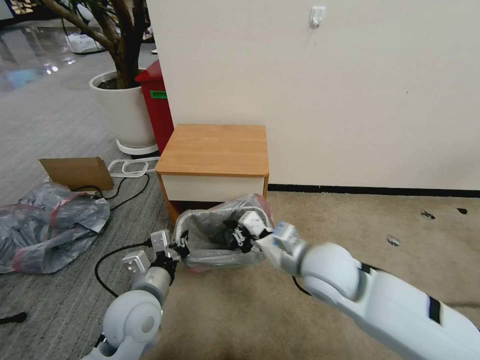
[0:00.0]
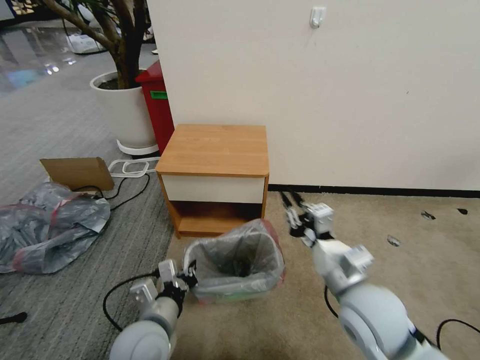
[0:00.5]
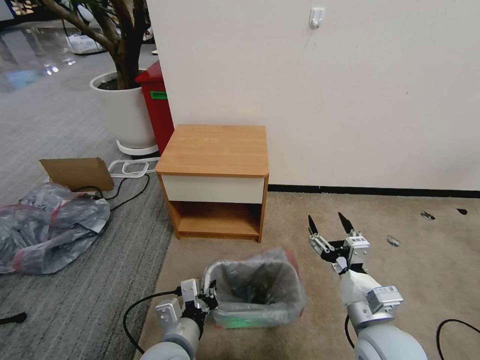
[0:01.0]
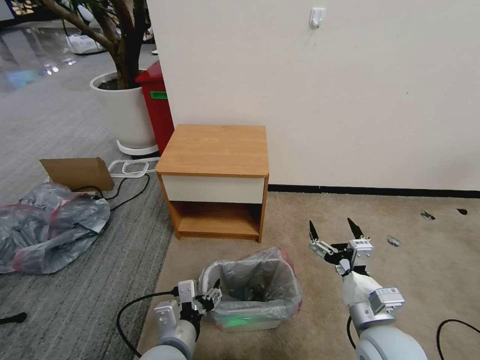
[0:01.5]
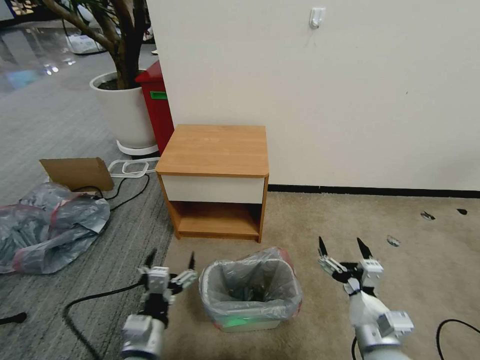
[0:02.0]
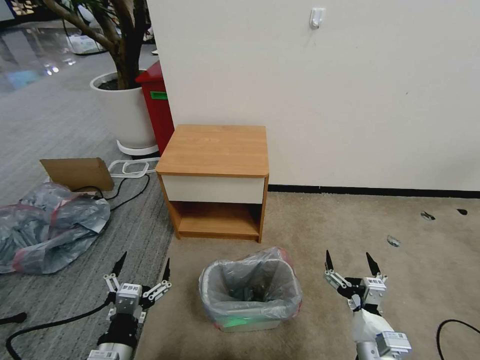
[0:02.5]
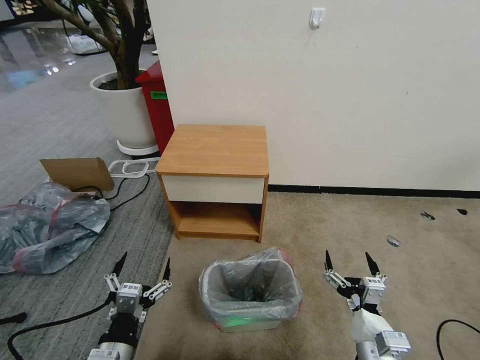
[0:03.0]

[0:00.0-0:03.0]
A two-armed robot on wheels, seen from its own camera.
Task of the whole recording: Pick up the garbage bag from the table and place it over the trash can.
0:00.0 to 0:01.5: The right gripper moves backward, to the right and downward, about 15 cm, and opens, while the left gripper is displaced backward and to the right by roughly 10 cm, and opens.
0:01.5 to 0:03.0: The left gripper is displaced to the left and backward by roughly 10 cm, and opens. Meanwhile the right gripper goes approximately 10 cm downward and backward.

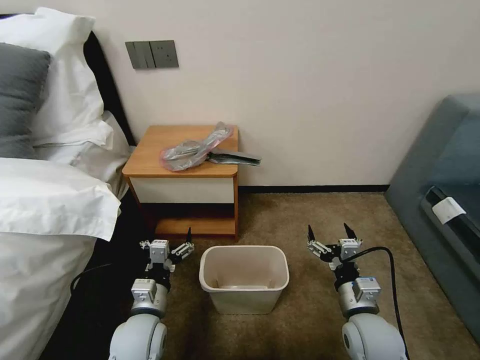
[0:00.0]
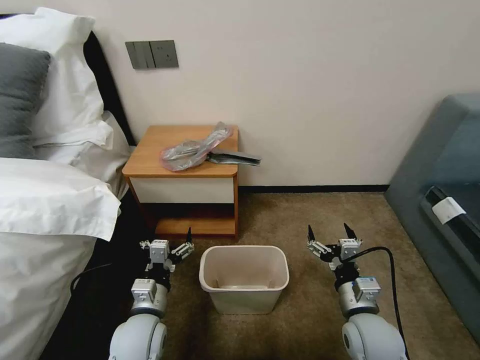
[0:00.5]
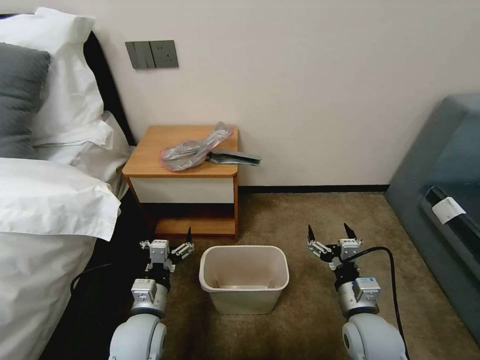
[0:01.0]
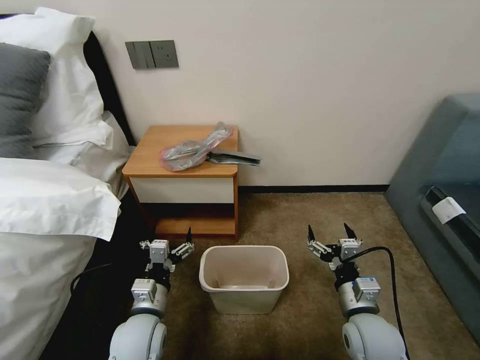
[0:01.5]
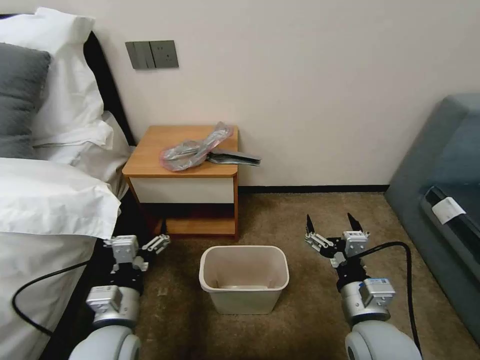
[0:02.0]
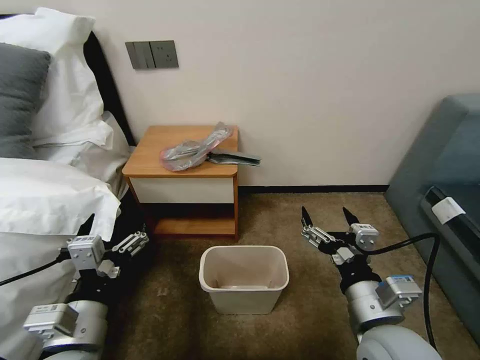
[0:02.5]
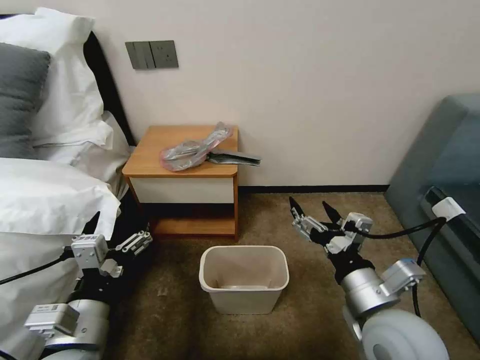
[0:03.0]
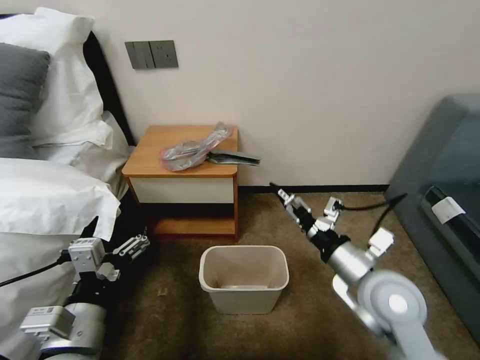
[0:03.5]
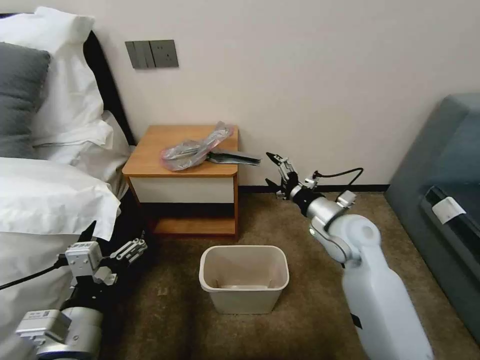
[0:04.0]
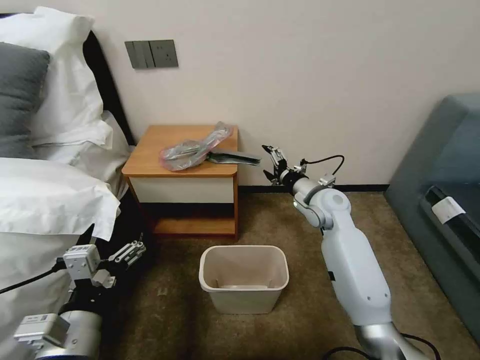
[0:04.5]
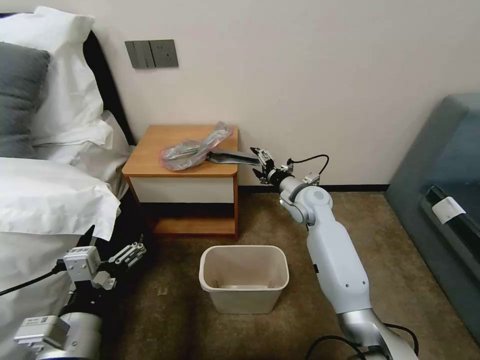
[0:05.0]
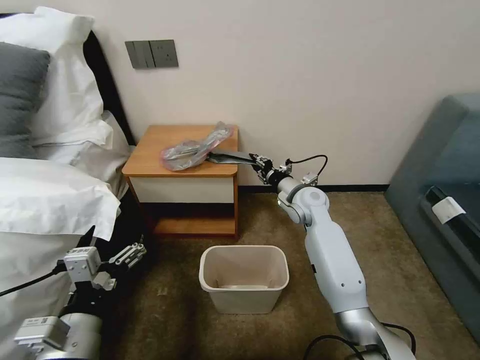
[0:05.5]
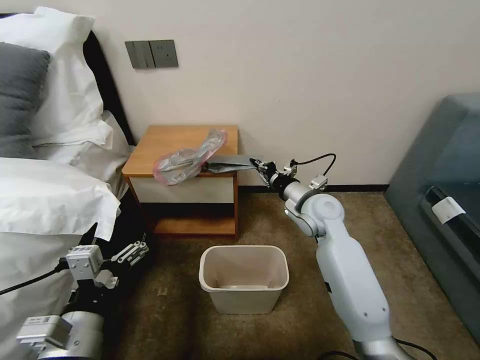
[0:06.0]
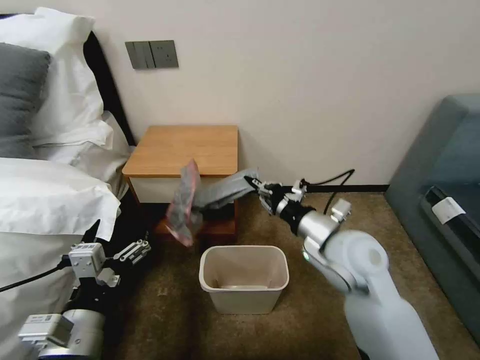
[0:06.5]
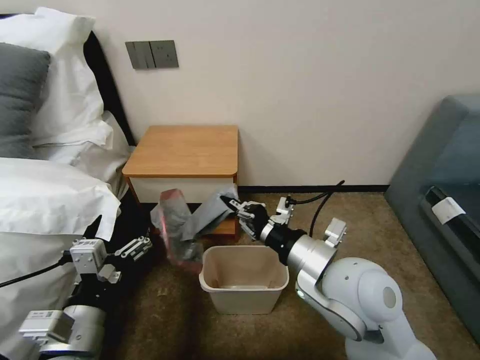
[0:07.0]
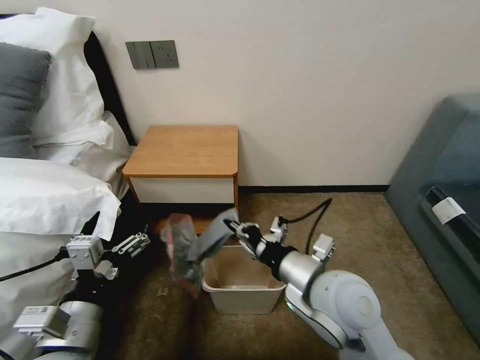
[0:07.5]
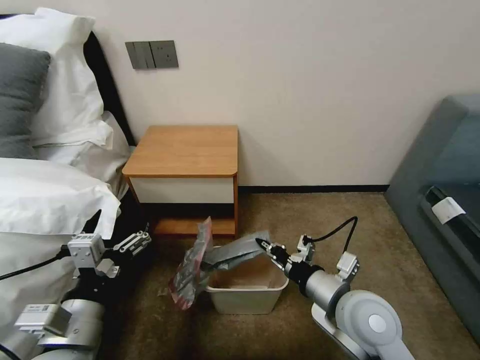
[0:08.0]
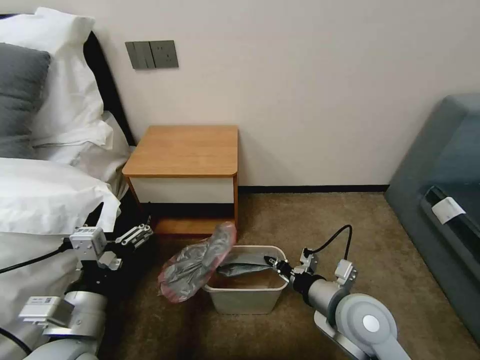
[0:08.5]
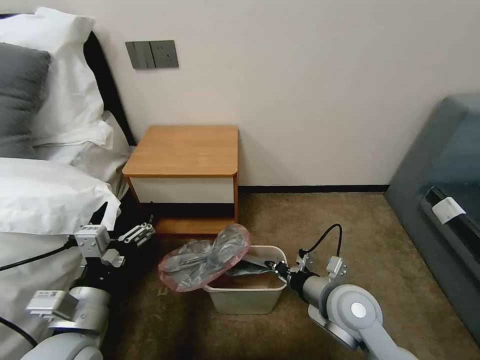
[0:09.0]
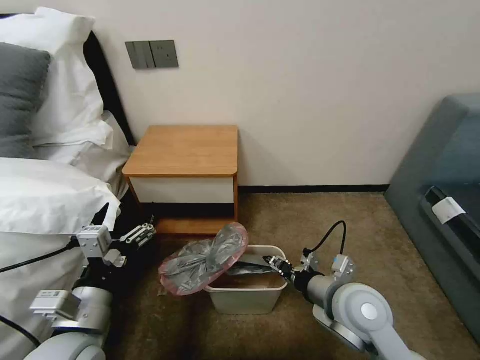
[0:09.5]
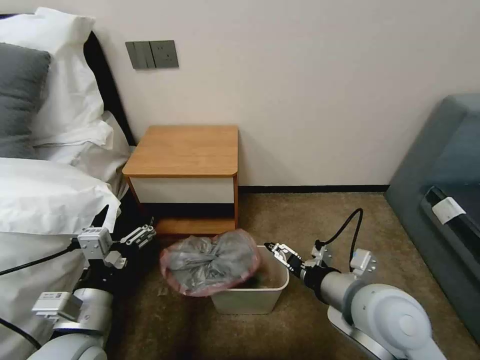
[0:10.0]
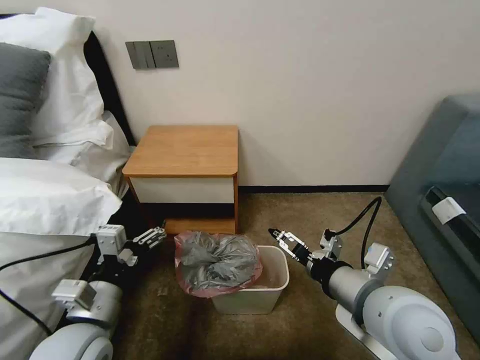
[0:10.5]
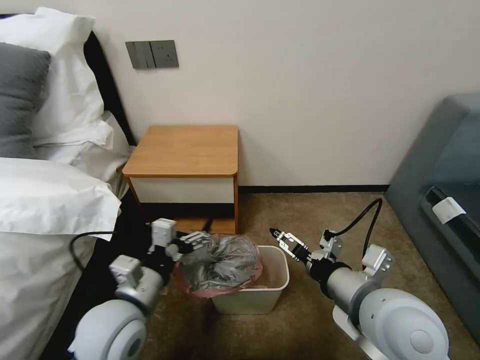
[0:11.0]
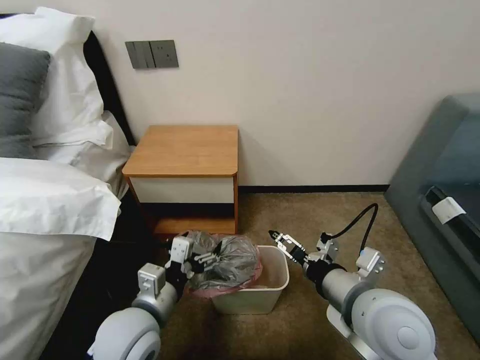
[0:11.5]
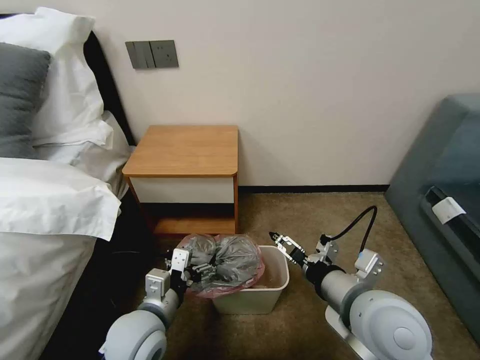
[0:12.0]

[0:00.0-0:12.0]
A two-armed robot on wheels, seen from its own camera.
Task of the whole recording: Pick up the garbage bag from the table and place it over the trash can.
0:02.0 to 0:04.0: The right gripper travels forward by about 20 cm; the left gripper heads upward and backward, covering roughly 10 cm.
0:04.0 to 0:06.0: The right gripper is displaced forward by about 5 cm, and closes its fingers.
0:06.0 to 0:08.0: The right gripper travels backward by roughly 20 cm.
0:08.0 to 0:10.0: The right gripper opens up.
0:10.0 to 0:12.0: The left gripper shifts roughly 10 cm downward and to the right.

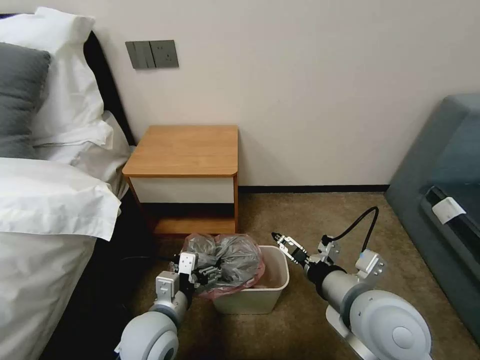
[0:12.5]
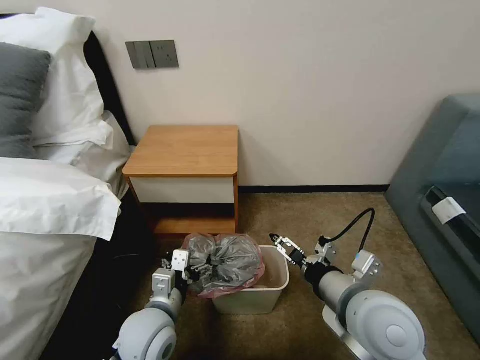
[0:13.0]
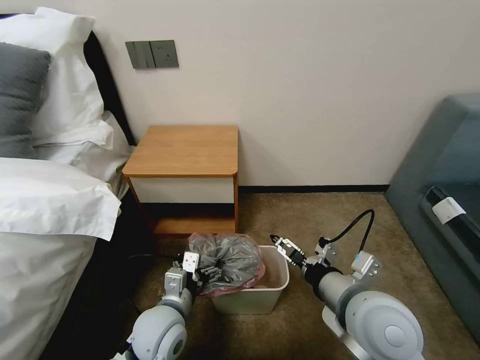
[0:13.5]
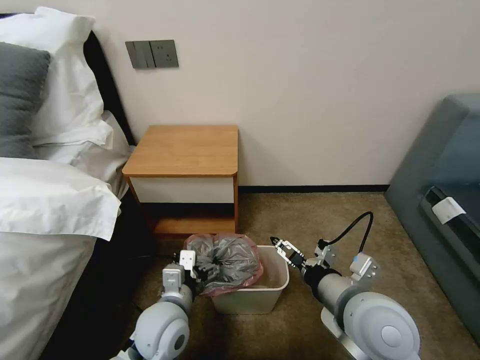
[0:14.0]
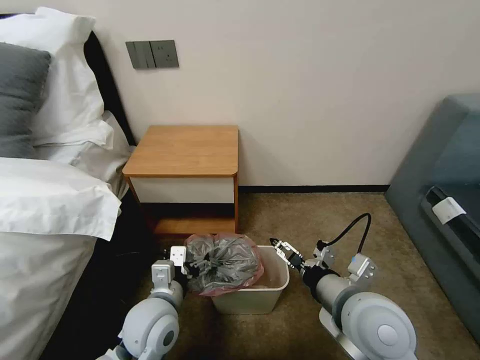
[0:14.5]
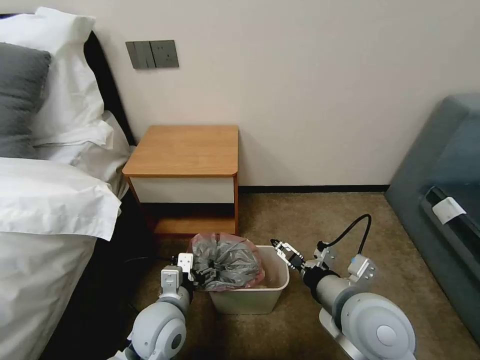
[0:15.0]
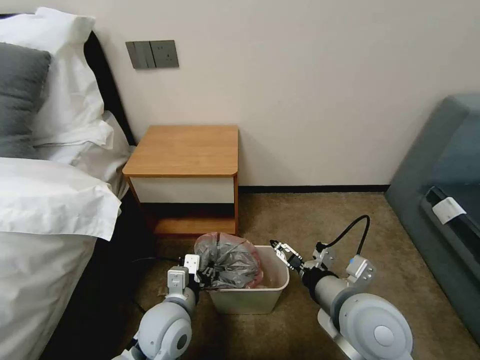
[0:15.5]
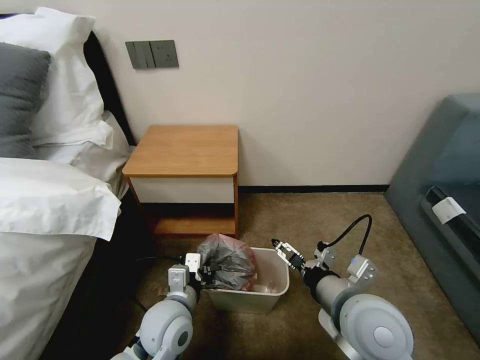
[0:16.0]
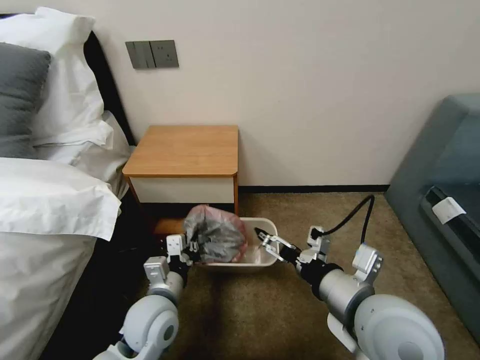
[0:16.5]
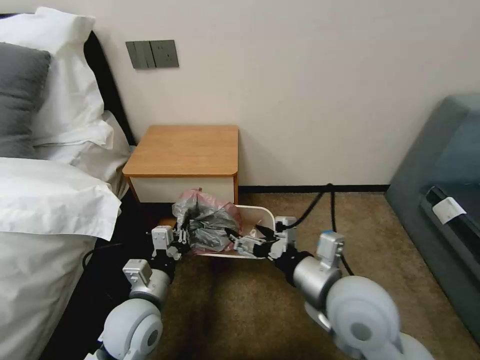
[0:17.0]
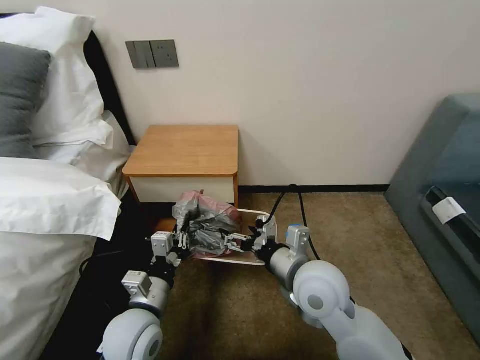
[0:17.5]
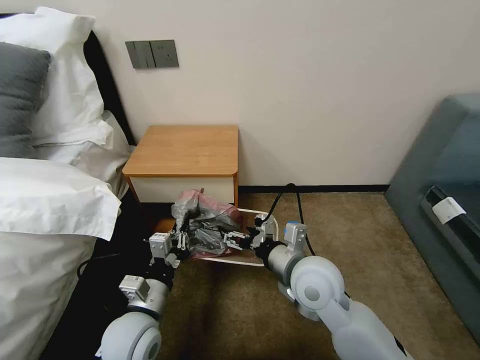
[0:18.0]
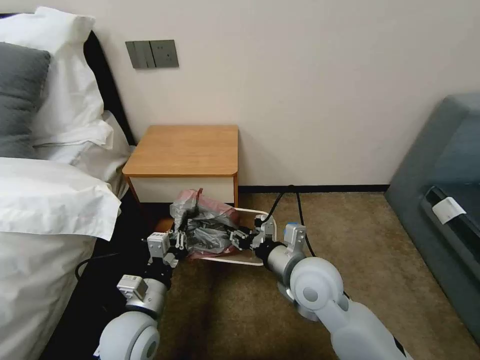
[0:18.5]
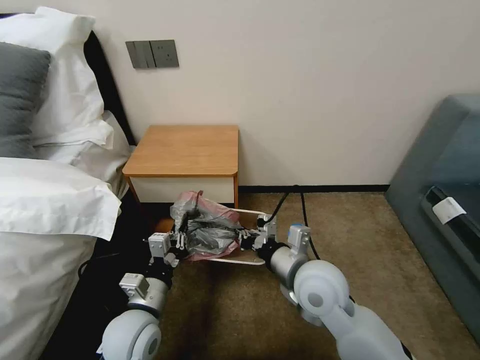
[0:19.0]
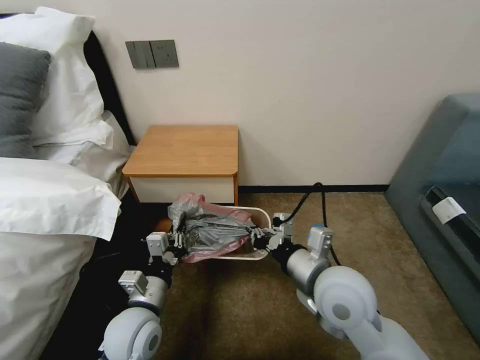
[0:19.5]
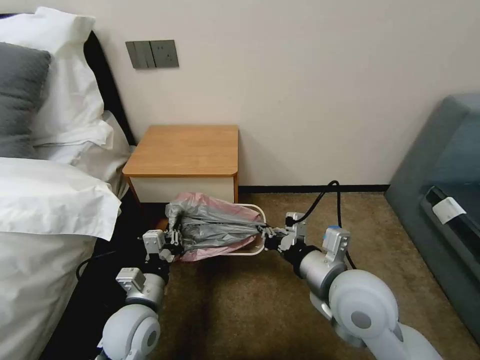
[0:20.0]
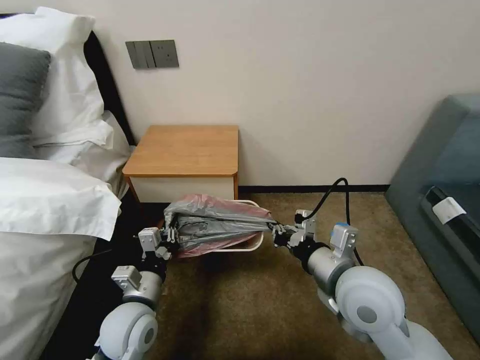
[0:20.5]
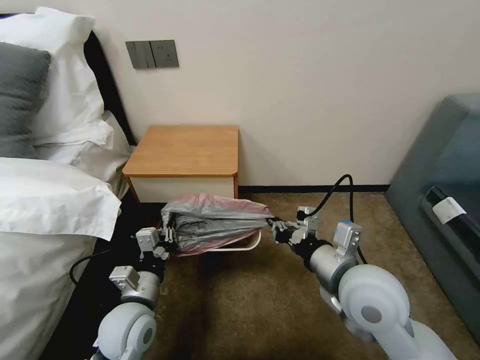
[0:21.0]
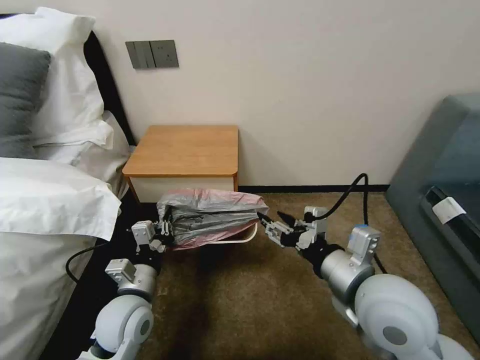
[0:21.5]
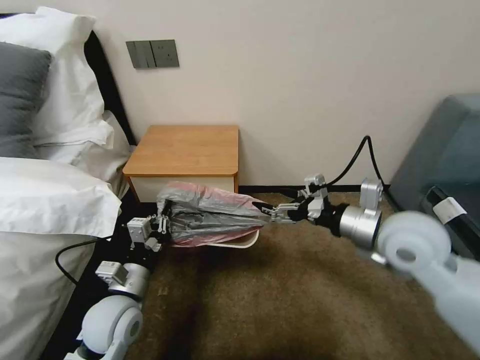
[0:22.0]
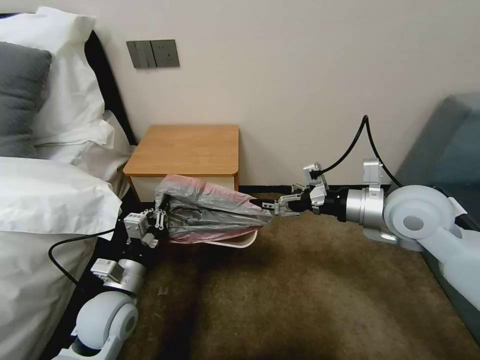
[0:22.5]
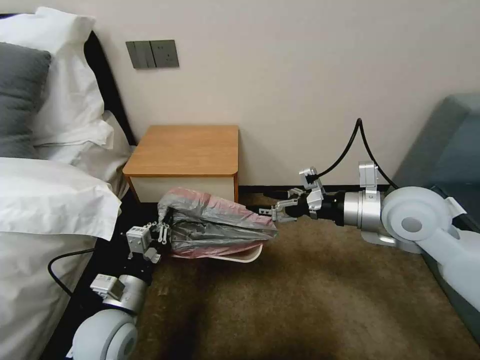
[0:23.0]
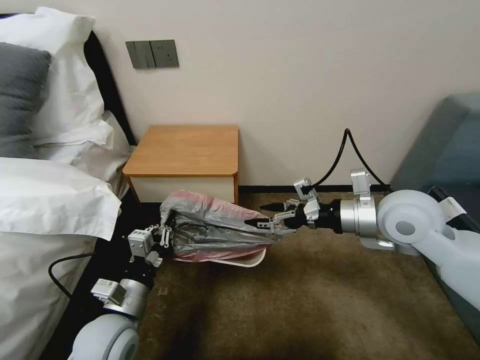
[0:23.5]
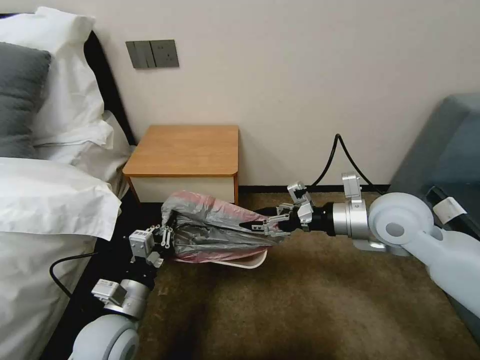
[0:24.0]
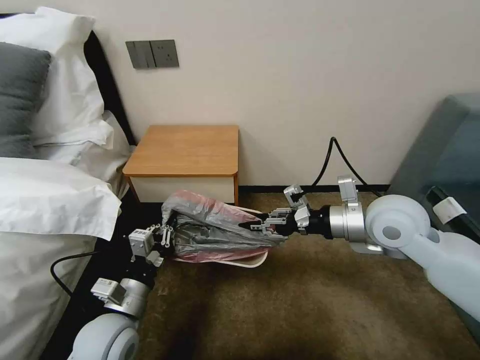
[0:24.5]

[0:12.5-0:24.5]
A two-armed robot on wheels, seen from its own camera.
Task of the whole recording: Pick up the garbage bag from the table and place it over the trash can.
0:12.5 to 0:14.5: The grippers stay close to where they were, moving slightly.
0:14.5 to 0:16.5: The left gripper closes up.
0:16.5 to 0:18.5: The right gripper heads forward, downward and to the left, covering about 15 cm, and closes its fingers.
0:18.5 to 0:20.5: The right gripper moves to the right and upward, roughly 10 cm, and closes its fingers.
0:20.5 to 0:22.5: The right gripper travels forward, to the right and upward by approximately 15 cm, and opens up.
0:22.5 to 0:24.5: The right gripper closes its fingers.
